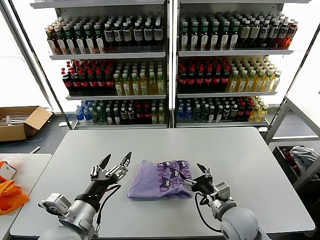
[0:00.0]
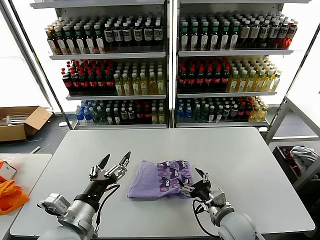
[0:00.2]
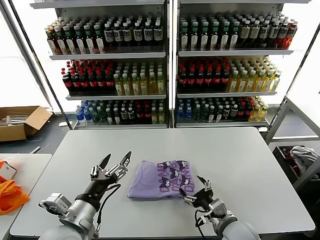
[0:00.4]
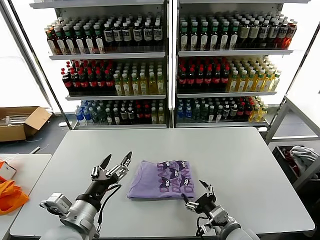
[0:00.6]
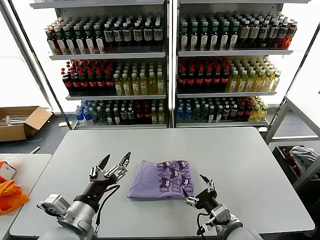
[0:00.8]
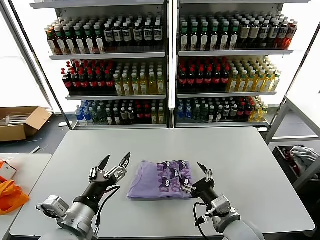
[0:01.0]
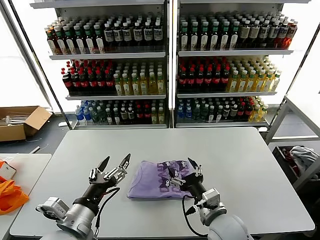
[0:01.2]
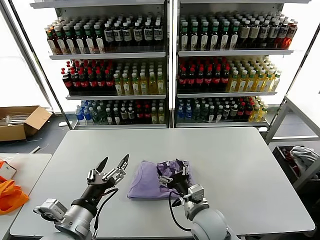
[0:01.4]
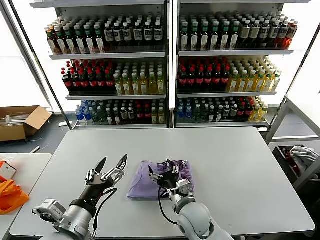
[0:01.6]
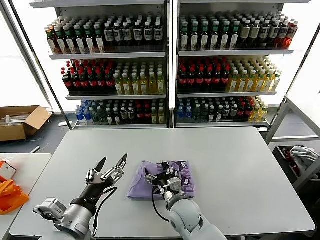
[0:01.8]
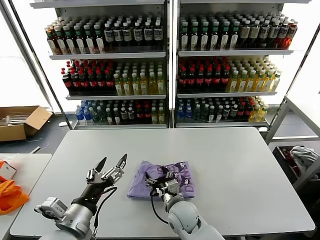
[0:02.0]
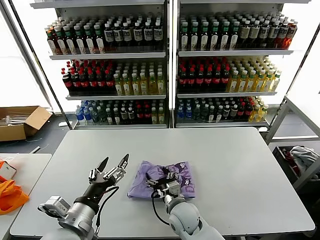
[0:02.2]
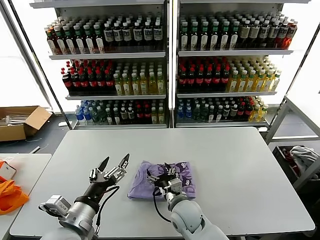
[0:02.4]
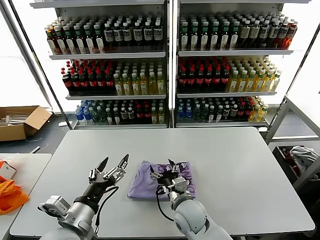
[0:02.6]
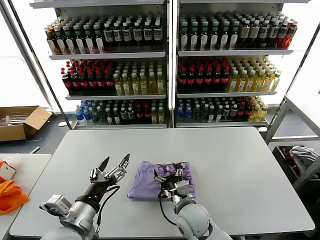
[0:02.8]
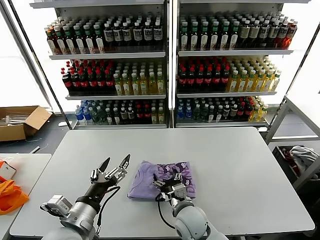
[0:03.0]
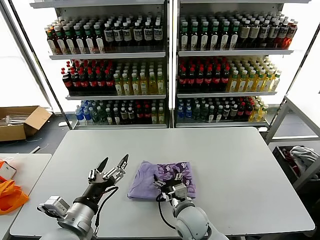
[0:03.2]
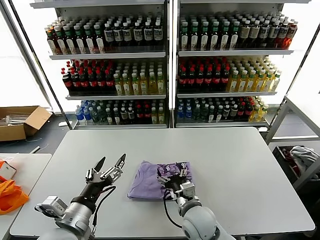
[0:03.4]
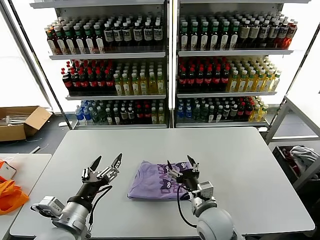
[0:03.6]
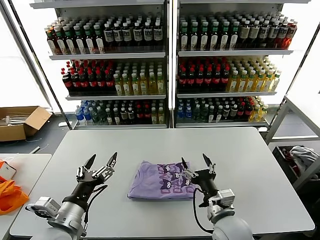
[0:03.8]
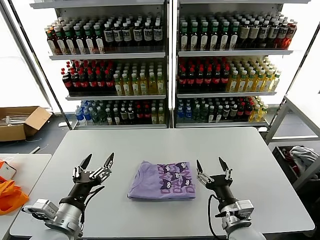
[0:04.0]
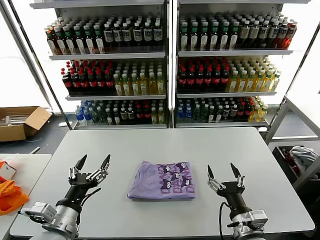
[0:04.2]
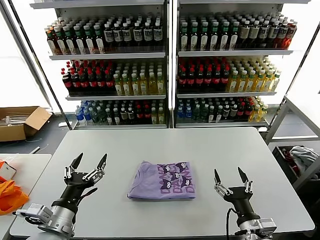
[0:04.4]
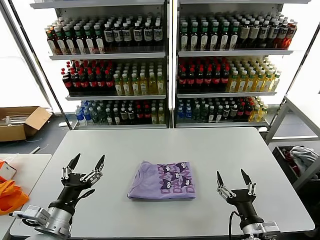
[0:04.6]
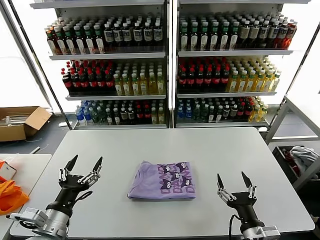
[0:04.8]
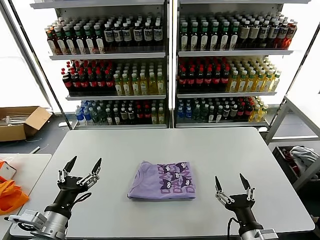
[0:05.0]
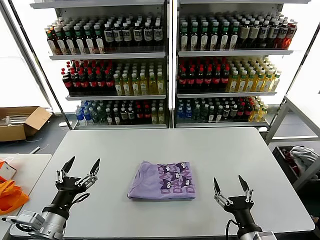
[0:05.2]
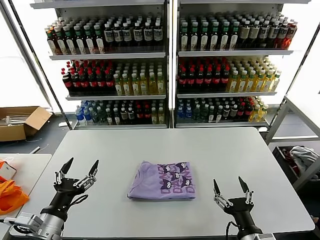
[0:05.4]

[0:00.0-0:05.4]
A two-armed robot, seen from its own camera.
Task of the whole recording: fold and organize the clothes.
Step, 0:00.0 to 0:03.2: Drag the clothes to the center of the table.
0:00.0 to 0:01.4: The right gripper heads to the left, covering approximately 10 cm.
0:02.8 to 0:04.0: The right gripper travels to the right and backward by roughly 15 cm.
0:04.0 to 0:05.4: The right gripper travels backward by some 10 cm.
